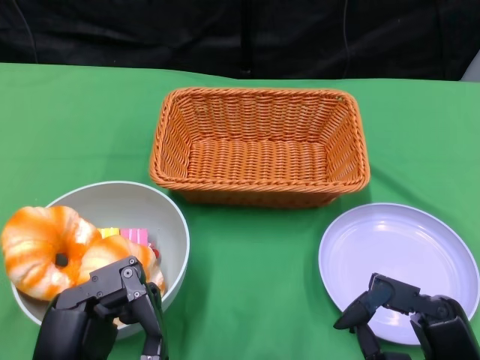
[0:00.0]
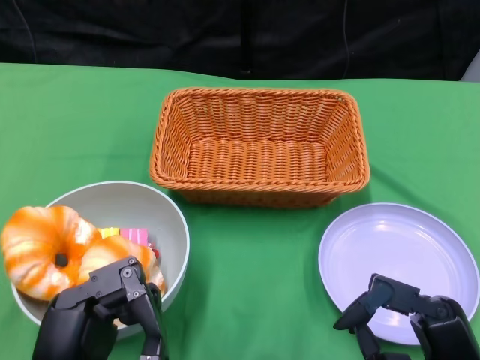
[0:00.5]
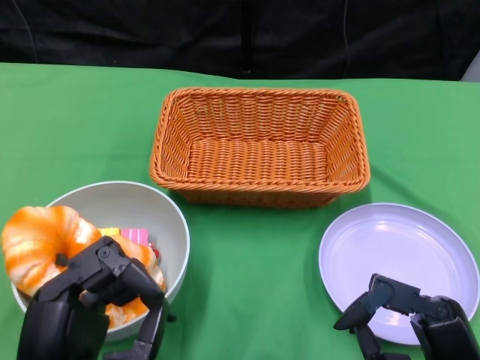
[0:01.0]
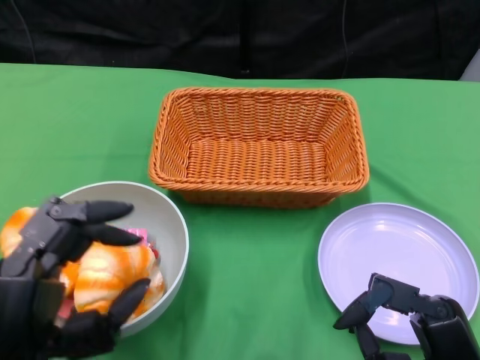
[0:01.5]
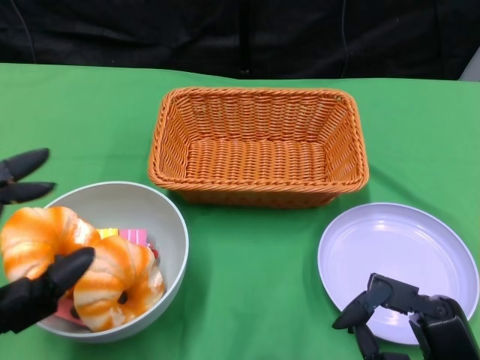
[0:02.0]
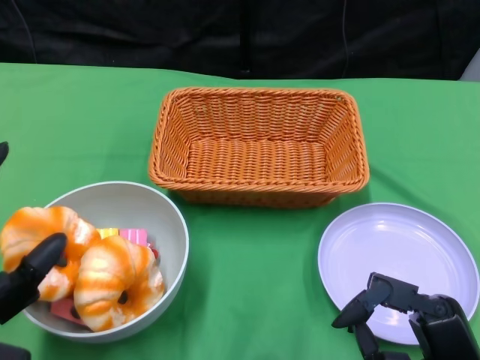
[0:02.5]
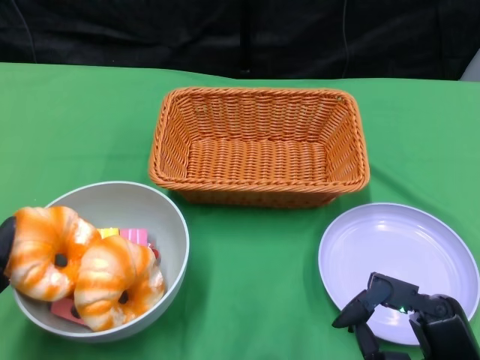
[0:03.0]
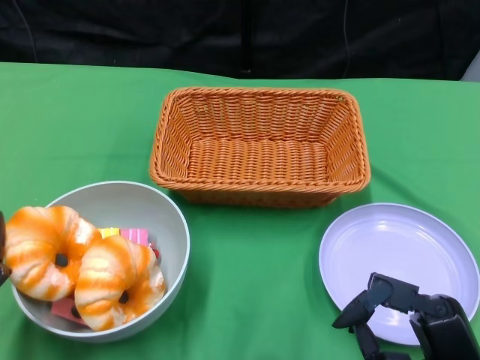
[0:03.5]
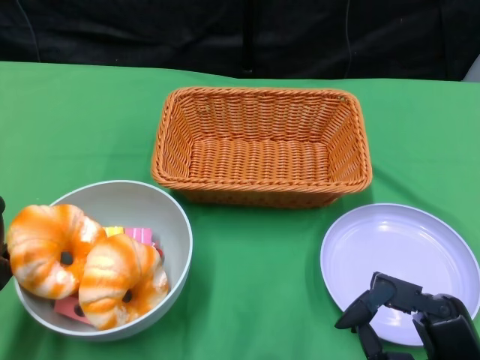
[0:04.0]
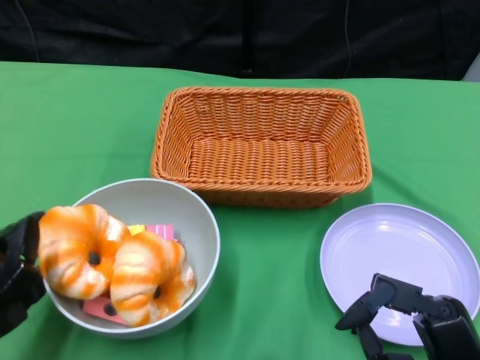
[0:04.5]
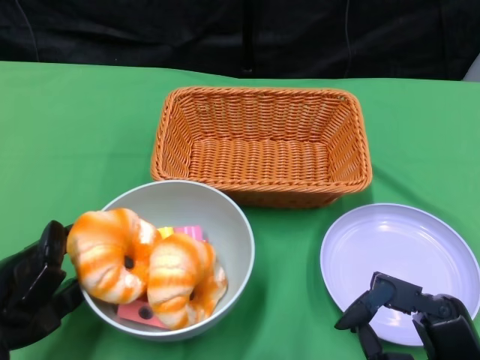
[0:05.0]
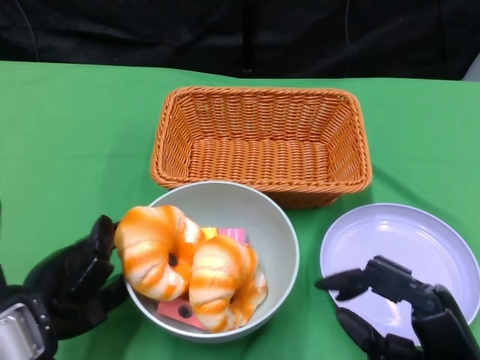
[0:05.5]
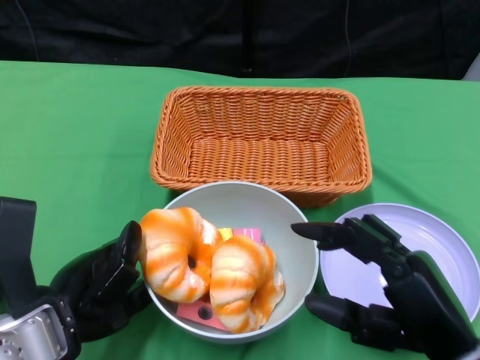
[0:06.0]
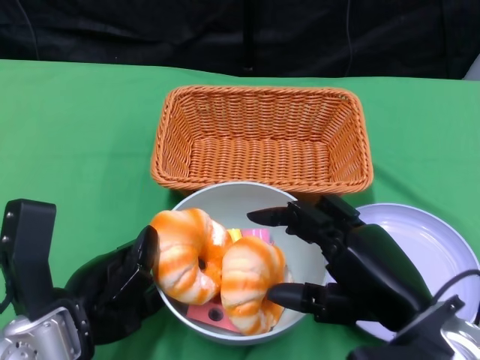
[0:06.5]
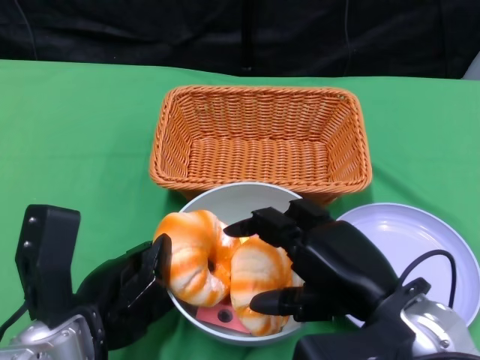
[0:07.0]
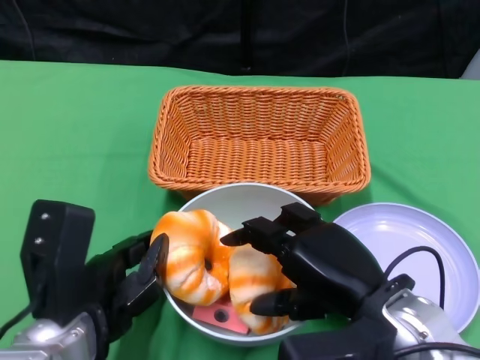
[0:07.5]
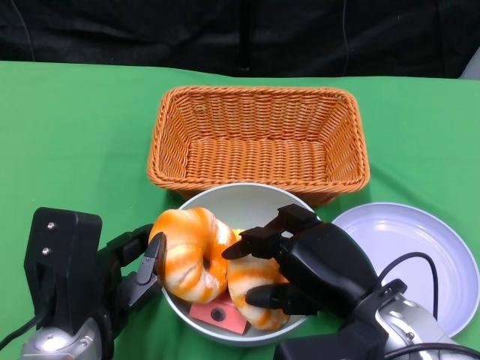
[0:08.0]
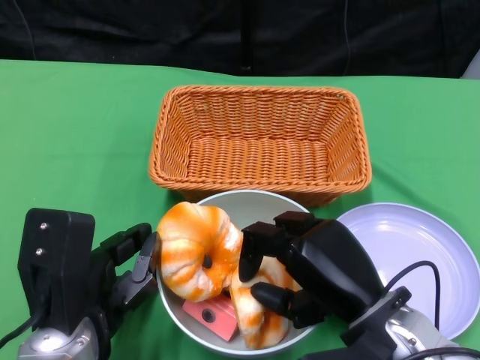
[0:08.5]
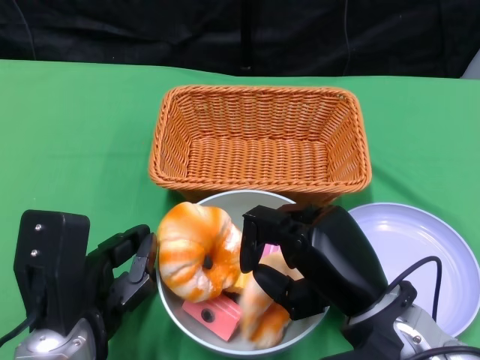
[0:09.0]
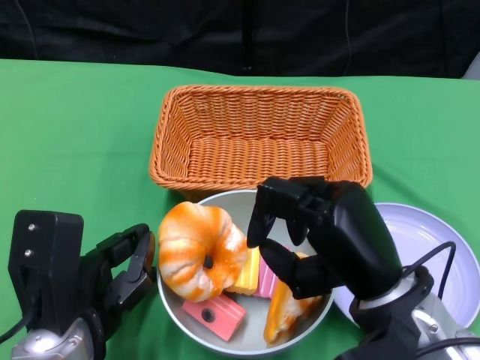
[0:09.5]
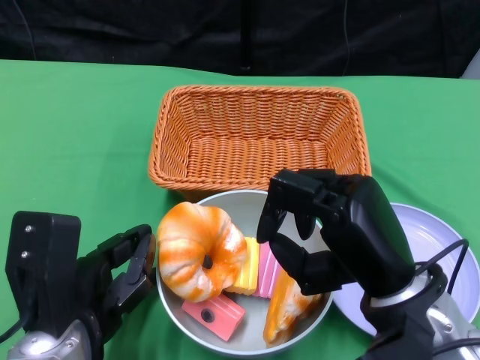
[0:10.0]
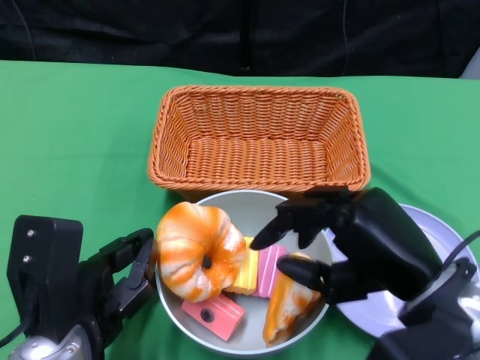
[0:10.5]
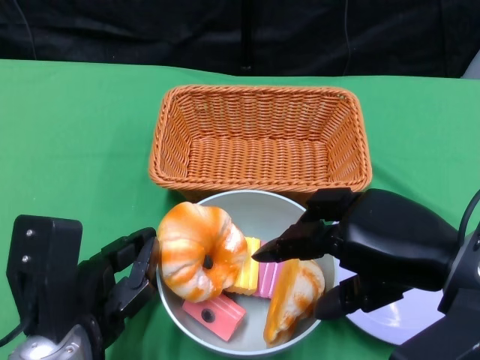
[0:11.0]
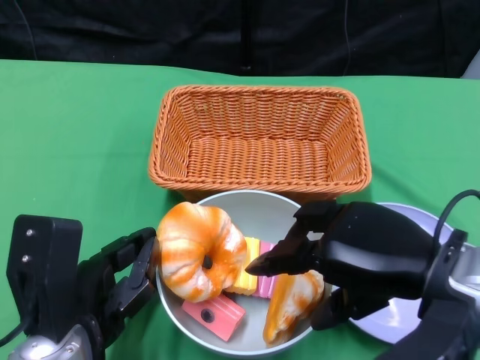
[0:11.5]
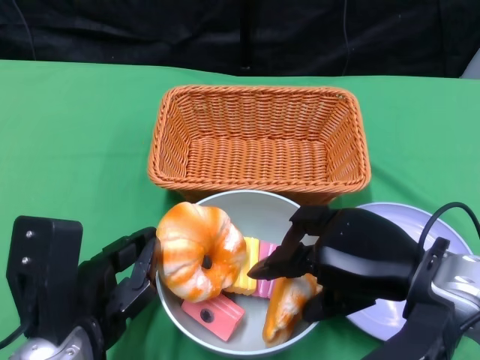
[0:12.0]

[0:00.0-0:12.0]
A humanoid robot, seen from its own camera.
Step, 0:00.0 to 0:07.0: Push the bowl to the center of the table using the left gripper.
0:02.0 to 0:04.0: The left hand shifts roughly 5 cm to the left.
0:04.0 to 0:06.0: The right hand travels upward by approximately 5 cm; the left hand goes some 10 cm to the right.
0:06.0 to 0:08.0: The right hand goes roughly 10 cm to the left and forward.

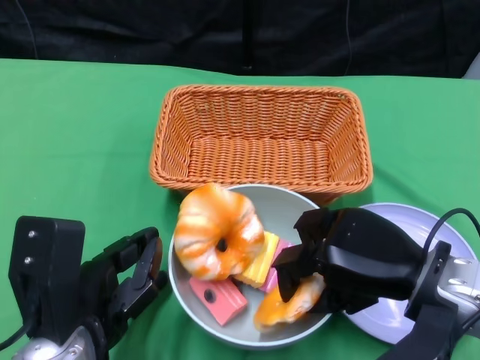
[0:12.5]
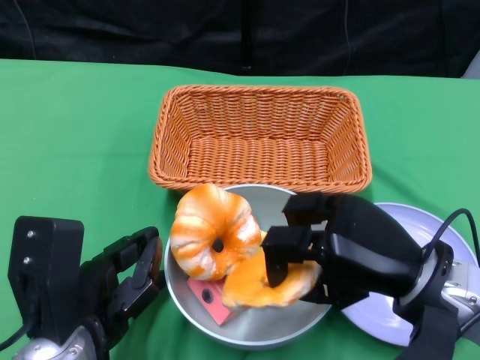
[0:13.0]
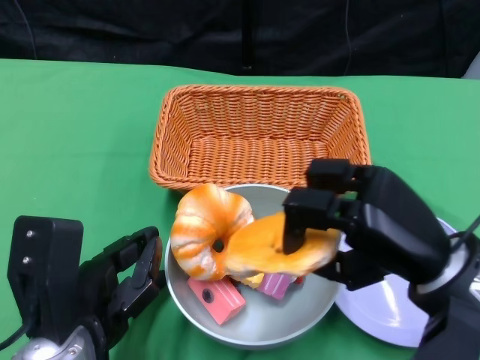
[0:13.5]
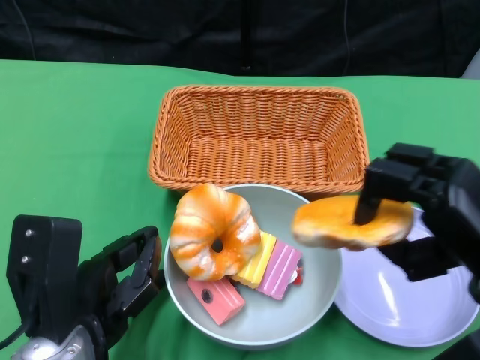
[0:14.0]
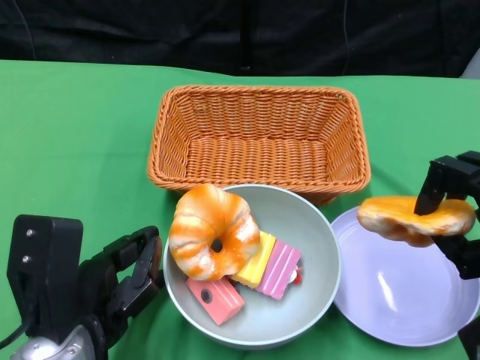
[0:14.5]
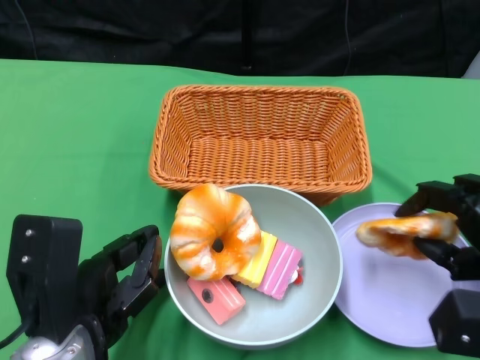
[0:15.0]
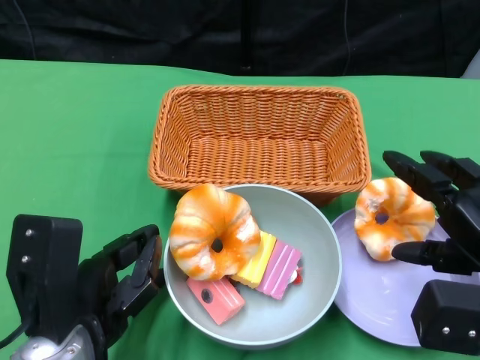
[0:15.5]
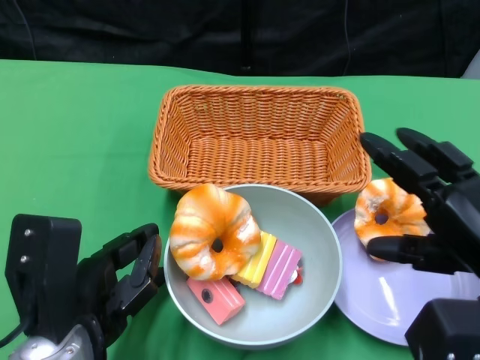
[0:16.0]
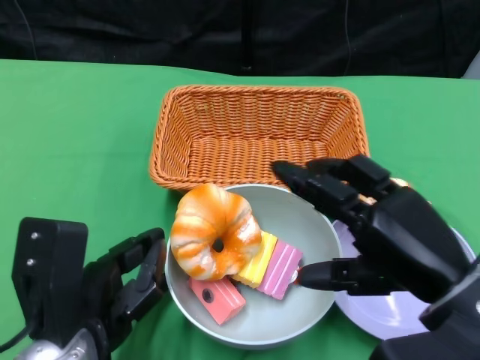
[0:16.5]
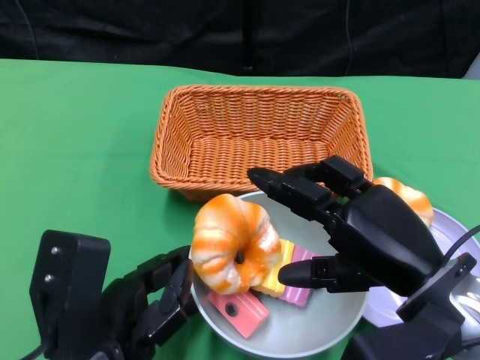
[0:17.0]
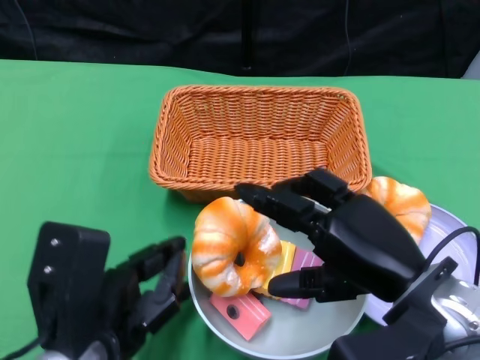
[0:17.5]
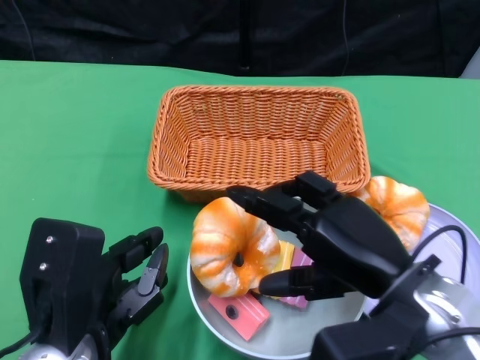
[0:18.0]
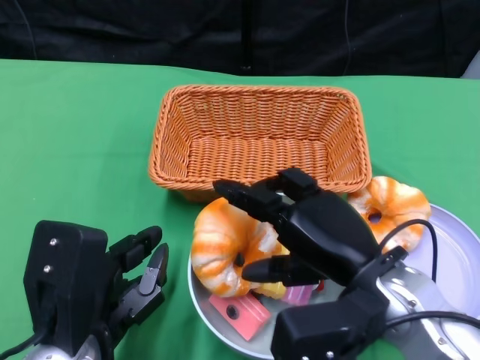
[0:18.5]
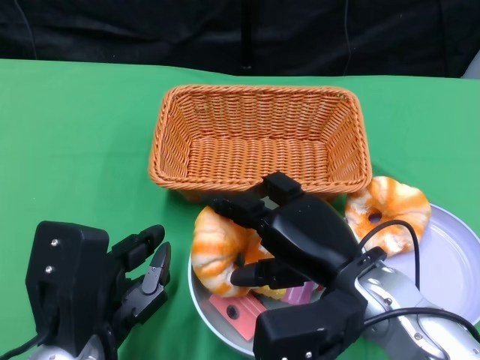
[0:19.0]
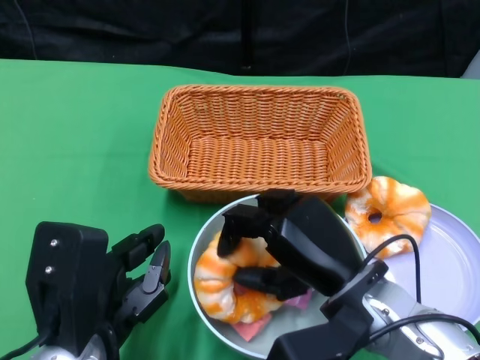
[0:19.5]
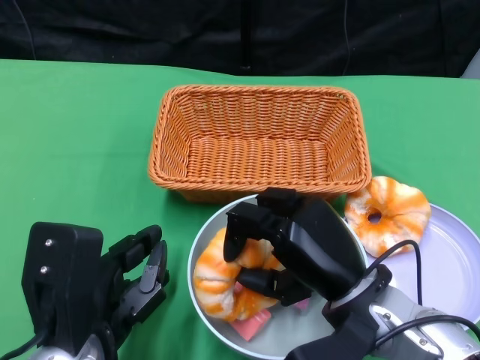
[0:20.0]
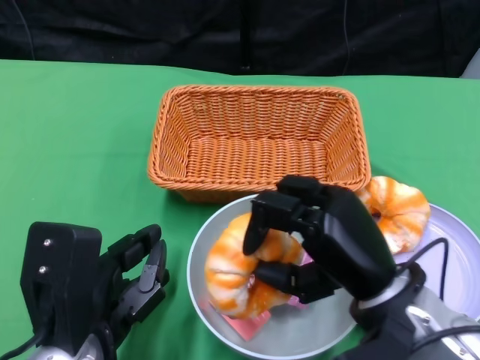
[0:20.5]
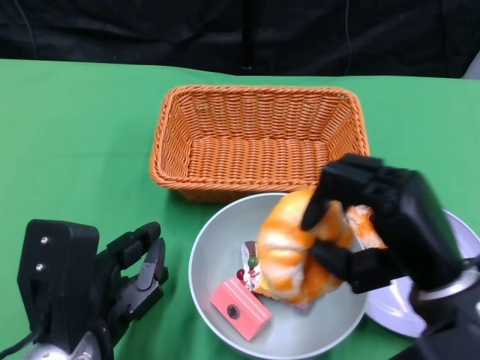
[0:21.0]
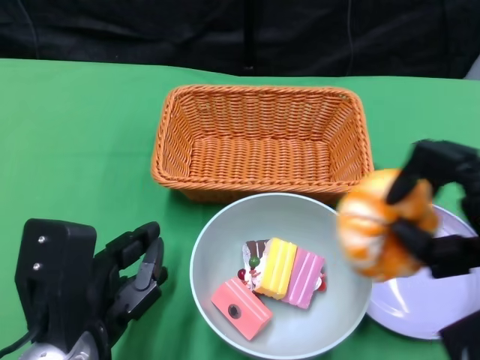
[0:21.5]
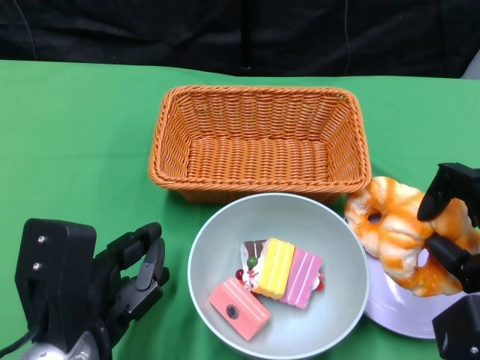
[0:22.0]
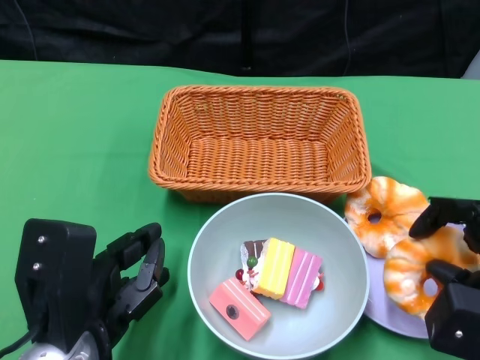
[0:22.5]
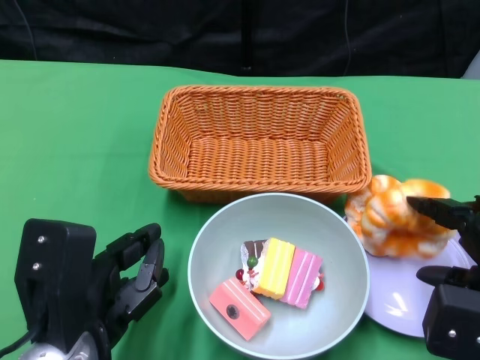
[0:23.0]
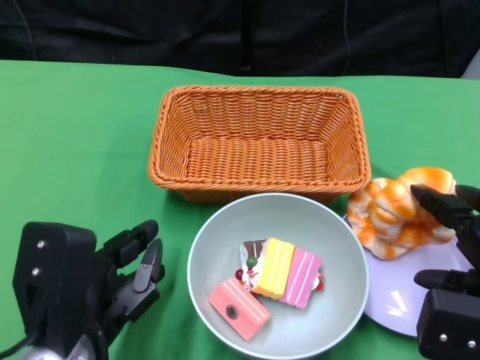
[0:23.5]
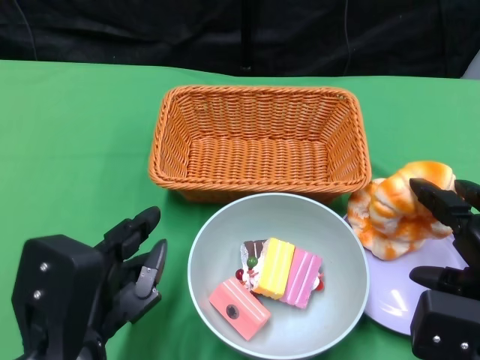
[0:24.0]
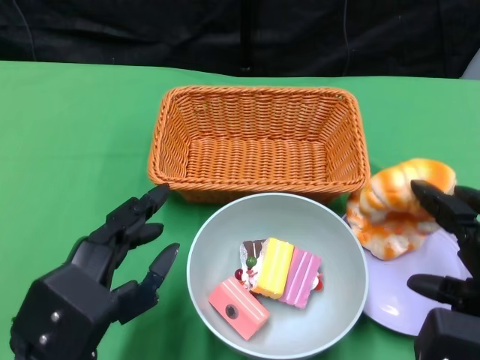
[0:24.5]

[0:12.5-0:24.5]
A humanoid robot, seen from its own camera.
Step, 0:12.5 to 0:15.5: Pick up the bread with the right gripper and place it on the plate.
0:12.5 to 0:14.5: The right hand heads to the right, covering some 10 cm.
0:14.5 to 0:16.5: The right hand shifts approximately 10 cm to the left.
0:16.5 to 0:18.5: The right hand heads to the left, covering approximately 5 cm.
0:20.5 to 0:22.5: The right hand goes some 15 cm to the right.

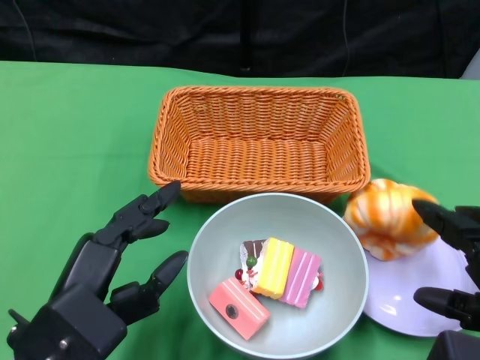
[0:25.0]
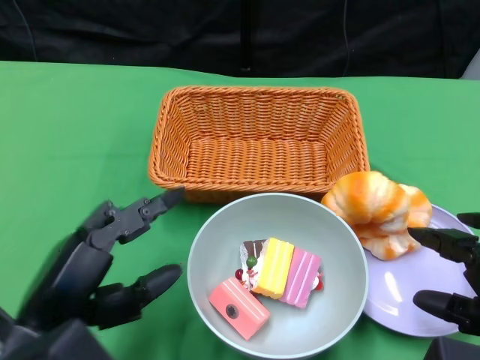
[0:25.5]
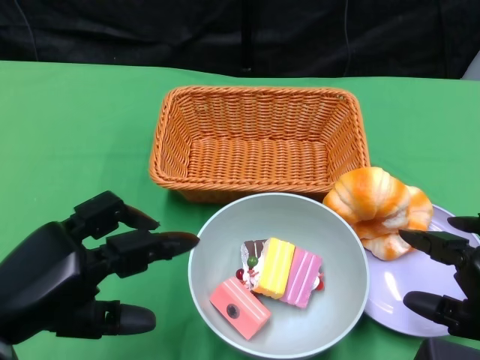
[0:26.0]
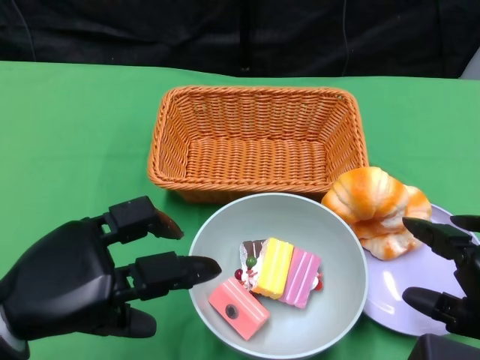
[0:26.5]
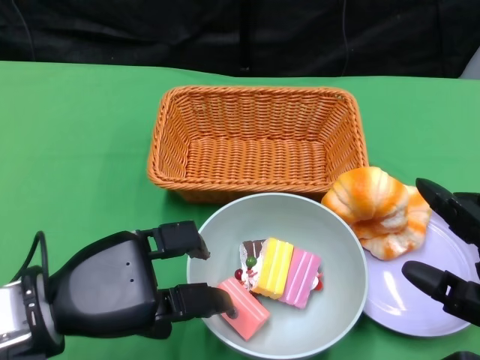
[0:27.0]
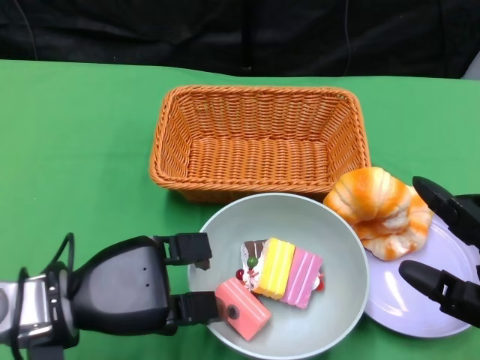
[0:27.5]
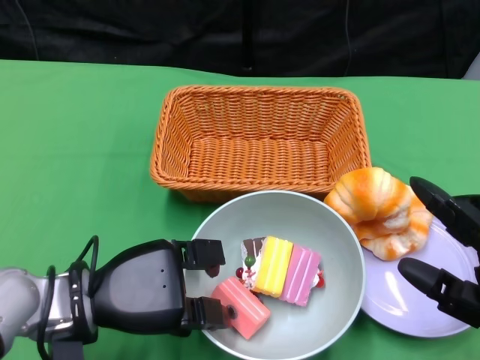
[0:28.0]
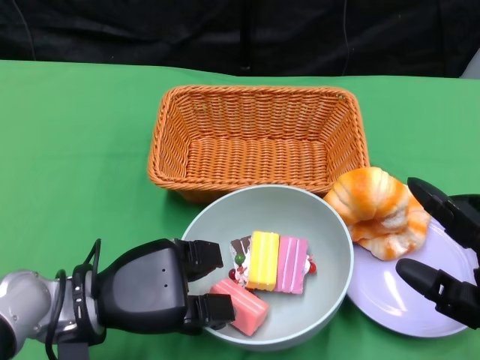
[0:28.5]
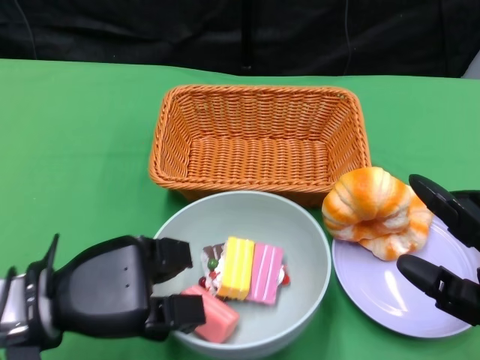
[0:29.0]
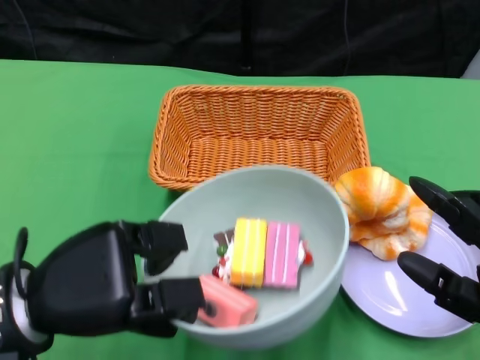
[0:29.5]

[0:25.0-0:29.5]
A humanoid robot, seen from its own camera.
Step, 0:26.0 to 0:28.0: Grasp the bowl with the left gripper.
0:25.0 to 0:27.0: The left hand travels forward by about 5 cm.
